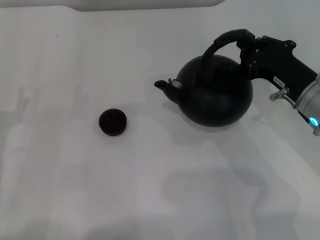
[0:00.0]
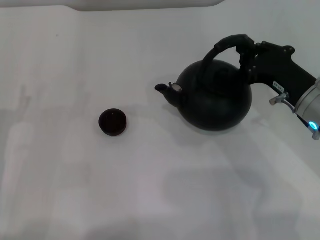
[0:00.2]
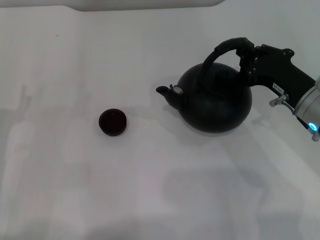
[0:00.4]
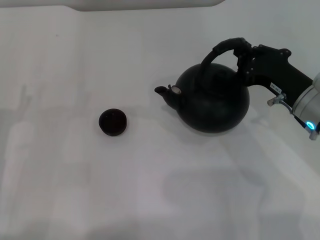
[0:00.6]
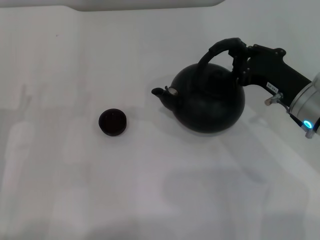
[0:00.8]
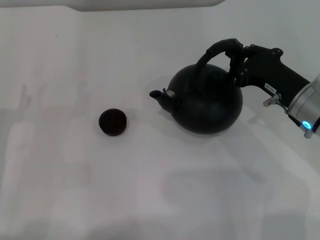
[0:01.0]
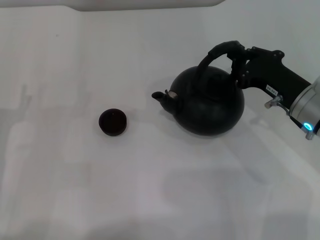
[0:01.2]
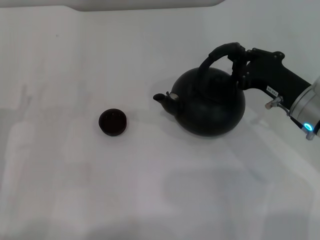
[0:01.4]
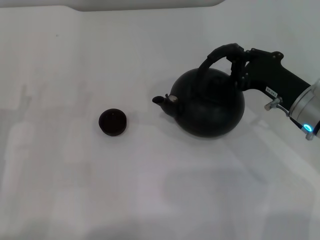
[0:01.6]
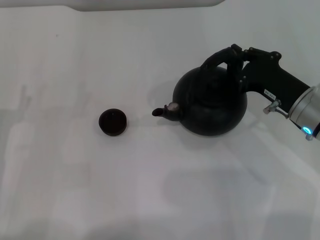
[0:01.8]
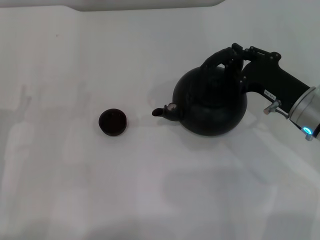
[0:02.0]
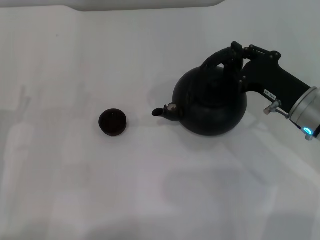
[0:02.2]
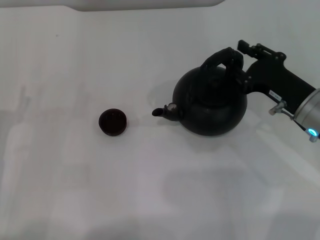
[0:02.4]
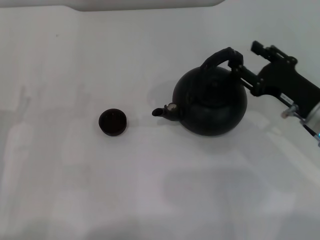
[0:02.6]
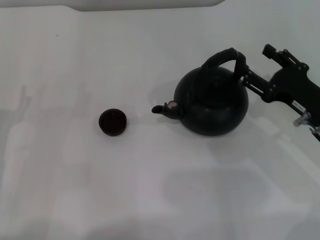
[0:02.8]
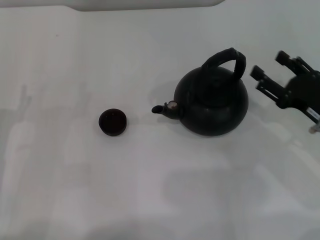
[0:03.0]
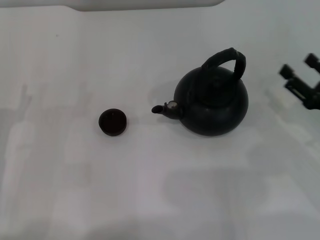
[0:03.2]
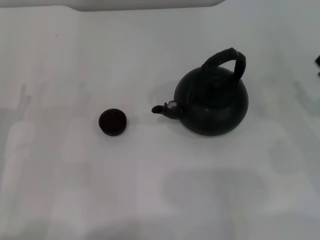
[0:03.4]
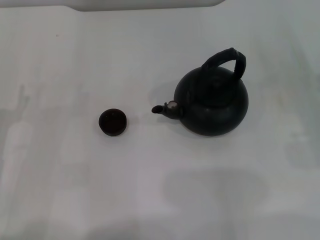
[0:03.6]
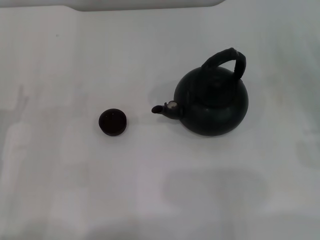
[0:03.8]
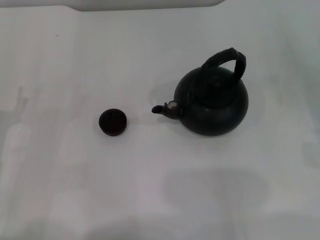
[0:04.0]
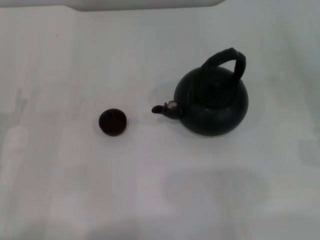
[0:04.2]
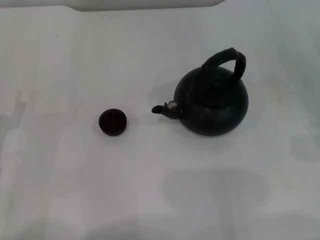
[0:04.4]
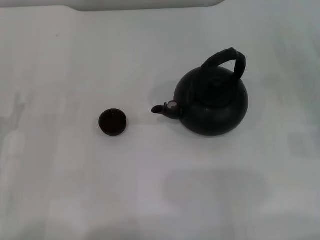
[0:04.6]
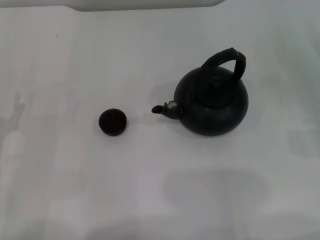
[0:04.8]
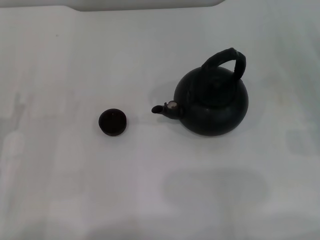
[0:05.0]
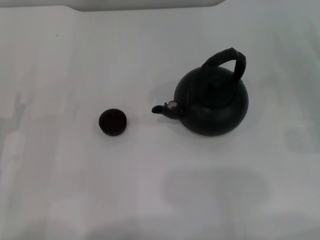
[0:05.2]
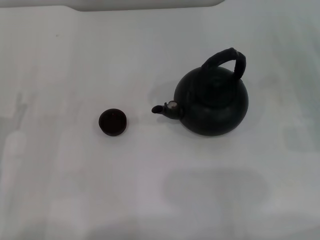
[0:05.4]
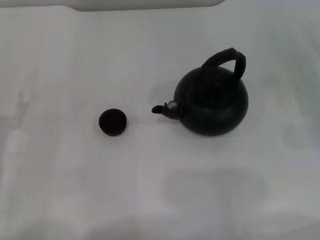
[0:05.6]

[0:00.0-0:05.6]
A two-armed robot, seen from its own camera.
Task of the whole recording: Grasp the handle of the teapot with one hand and pour tea into the teacup.
Step, 0:00.0 to 0:02.8: Put down the teapot with the right gripper.
0:00.0 to 0:01.4: The grippers stay close to where they were, moving slightly.
0:01.4 to 0:02.8: The right gripper opens.
0:02.8 to 0:04.2: The right gripper moves to the right, about 10 cm.

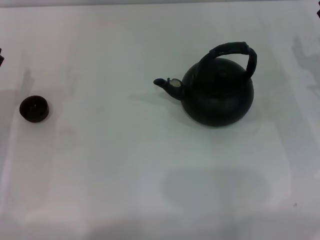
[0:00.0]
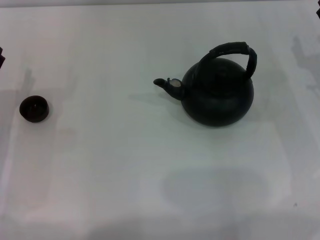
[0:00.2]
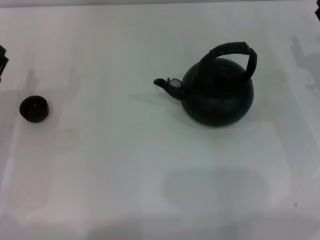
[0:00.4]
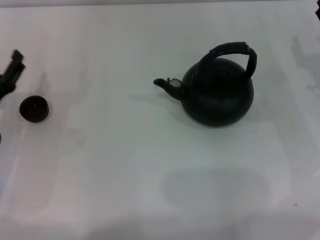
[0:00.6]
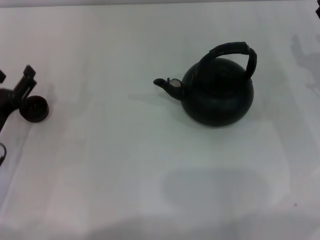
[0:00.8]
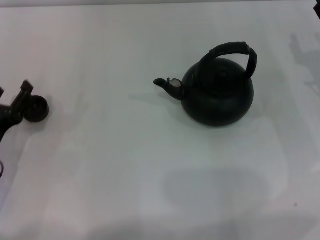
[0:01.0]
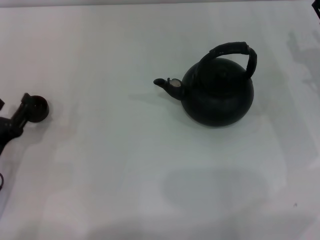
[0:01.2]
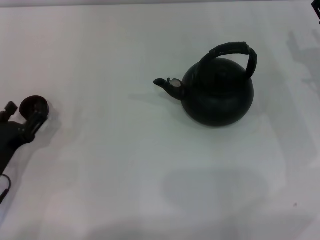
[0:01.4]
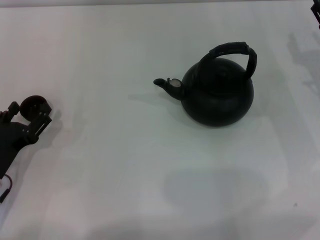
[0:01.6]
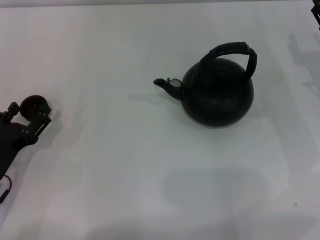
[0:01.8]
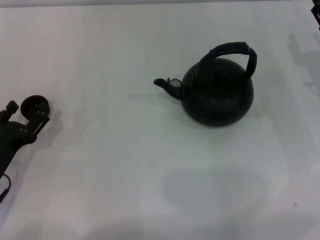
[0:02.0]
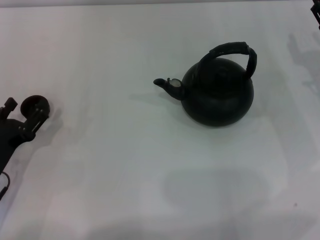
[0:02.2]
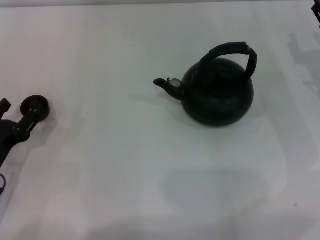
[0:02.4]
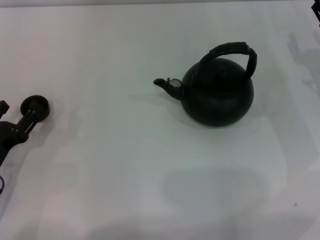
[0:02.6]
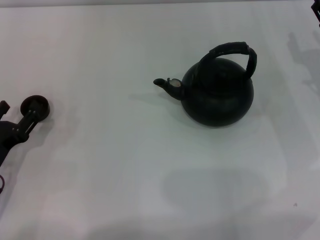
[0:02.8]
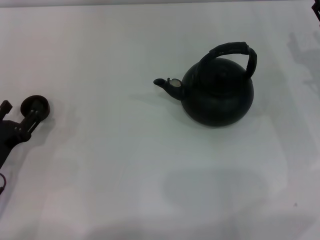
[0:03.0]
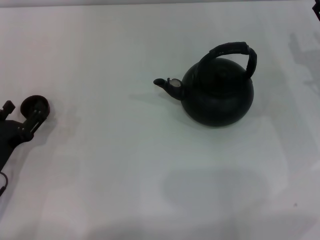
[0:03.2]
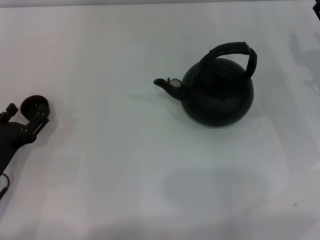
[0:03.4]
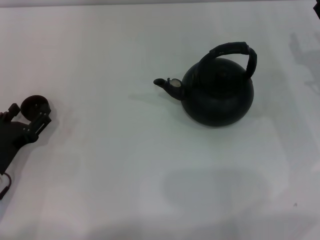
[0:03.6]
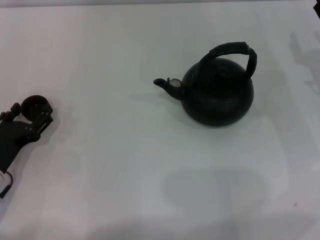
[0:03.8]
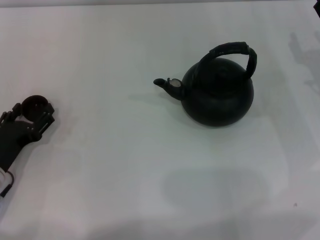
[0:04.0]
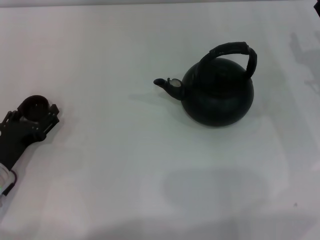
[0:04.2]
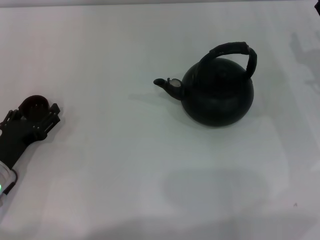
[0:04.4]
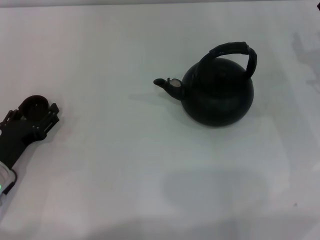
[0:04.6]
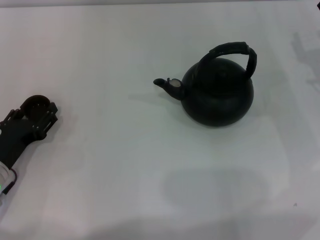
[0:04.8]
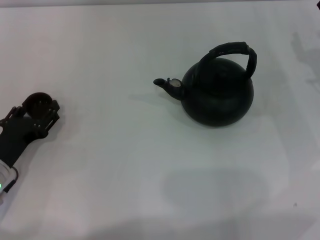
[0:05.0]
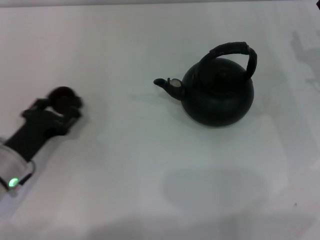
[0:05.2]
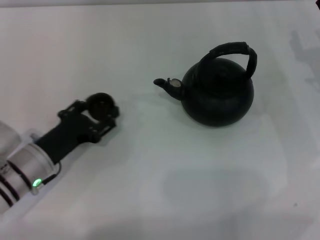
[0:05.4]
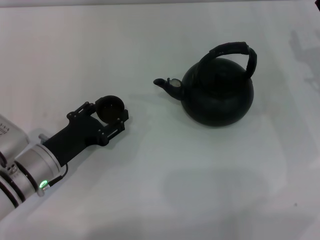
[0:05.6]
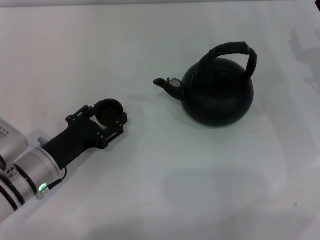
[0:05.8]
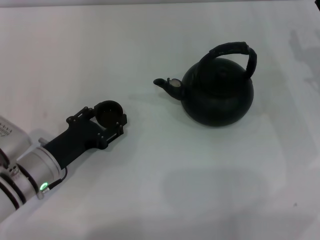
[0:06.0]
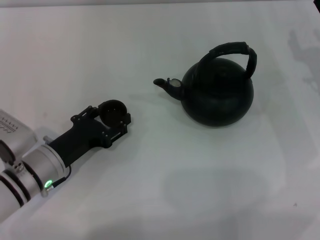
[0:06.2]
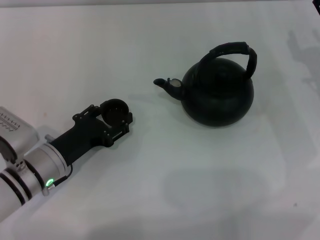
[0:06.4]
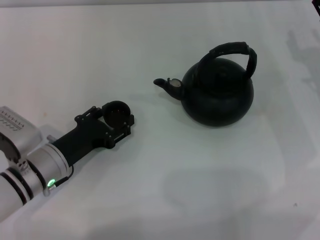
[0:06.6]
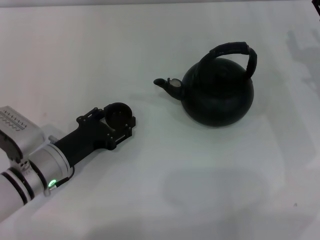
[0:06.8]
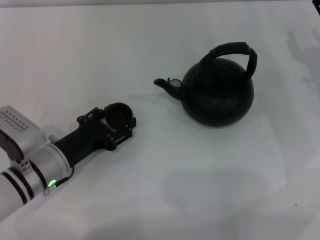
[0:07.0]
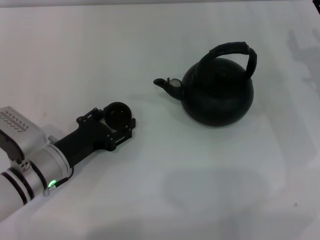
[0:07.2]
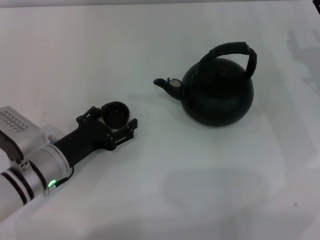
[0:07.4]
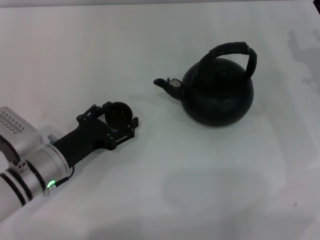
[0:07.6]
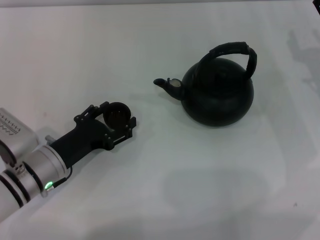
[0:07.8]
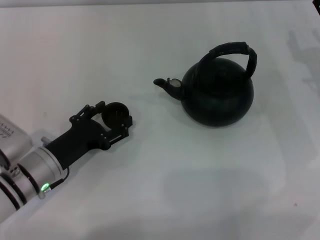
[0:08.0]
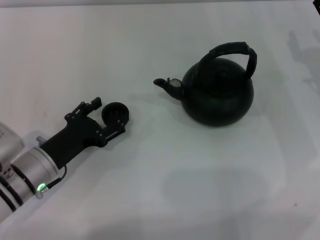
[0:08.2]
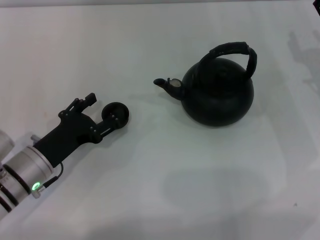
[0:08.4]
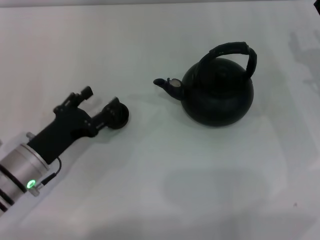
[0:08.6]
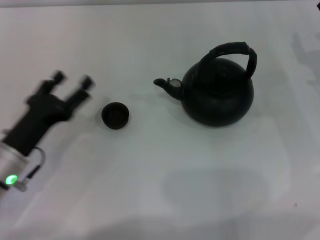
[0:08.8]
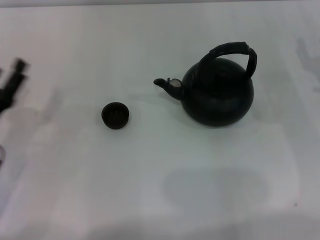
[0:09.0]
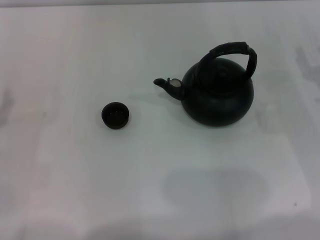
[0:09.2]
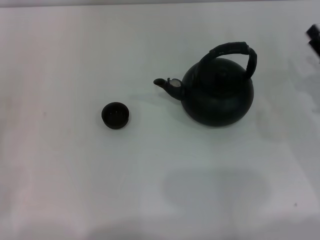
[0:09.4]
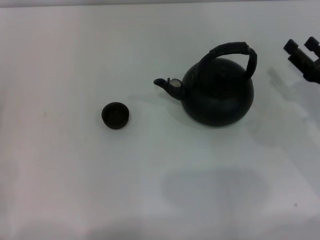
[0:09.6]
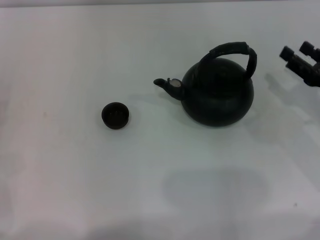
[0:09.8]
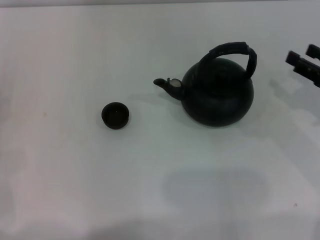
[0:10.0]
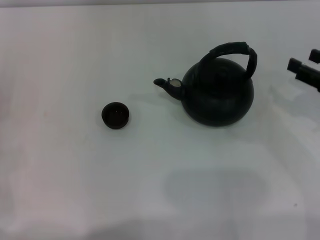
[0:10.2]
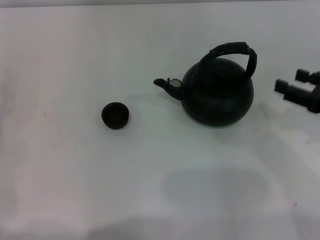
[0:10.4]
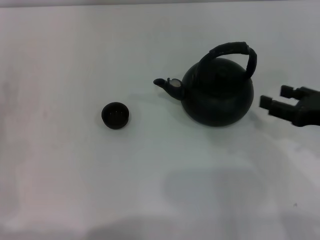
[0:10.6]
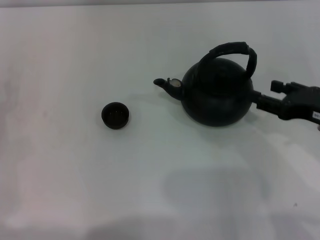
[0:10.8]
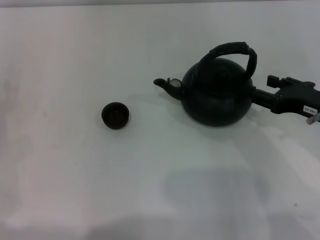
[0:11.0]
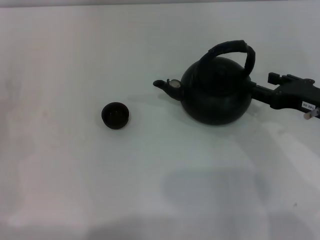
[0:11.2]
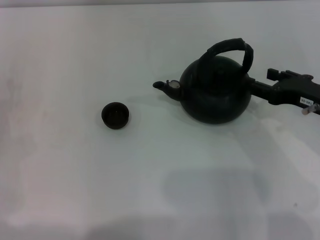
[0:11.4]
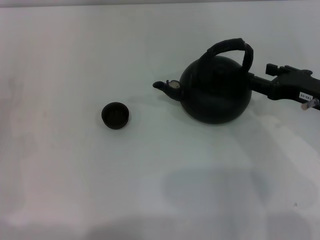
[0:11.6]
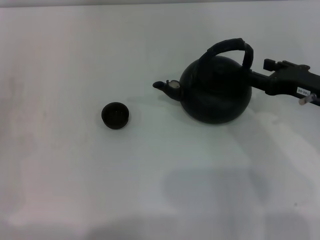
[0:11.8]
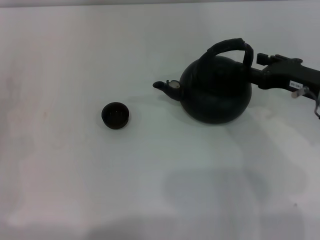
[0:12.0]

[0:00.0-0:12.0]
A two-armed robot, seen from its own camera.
Task of the whole recording: Grasp the handle of the teapot with one hand and pour tea into the teacup.
Step, 0:00.0 to 0:05.0: Pick up the teacup with the left gripper.
Step, 0:05.2 to 0:08.6: Place the teacup in the center of view with the left gripper.
0:00.0 to 0:01.6: The left gripper heads backward, covering about 5 cm.
0:01.6 to 0:03.0: The two grippers keep their place.
0:03.0 to 0:04.4: There are only small adjustments of the grippers.
0:04.4 to 0:06.0: The left gripper is displaced to the right by approximately 5 cm, and closes its fingers.
0:06.0 to 0:07.6: The left gripper opens its fingers.
0:07.6 to 0:09.0: The left gripper goes some 10 cm to the left.
0:09.0 to 0:10.4: The left gripper goes some 5 cm to the left. Meanwhile the right gripper heads upward and backward, covering roughly 10 cm.
0:10.4 to 0:12.0: The right gripper moves to the left and forward, roughly 10 cm.

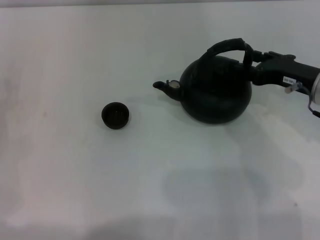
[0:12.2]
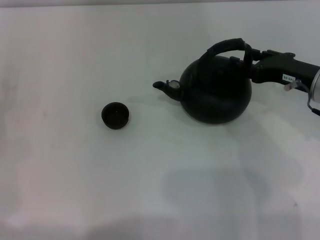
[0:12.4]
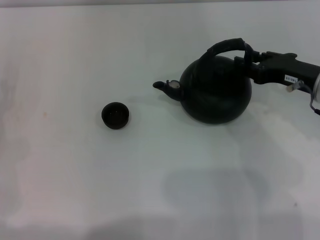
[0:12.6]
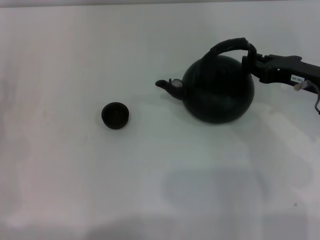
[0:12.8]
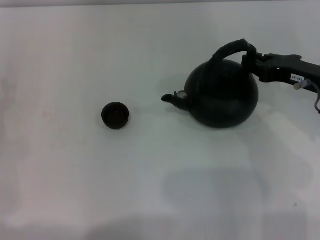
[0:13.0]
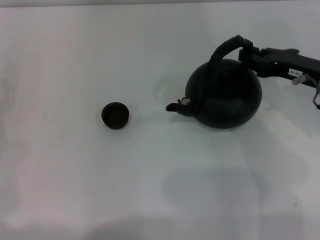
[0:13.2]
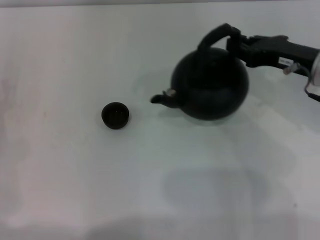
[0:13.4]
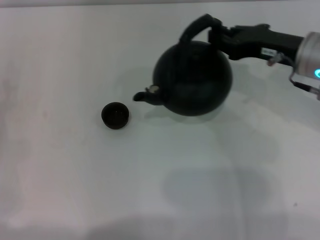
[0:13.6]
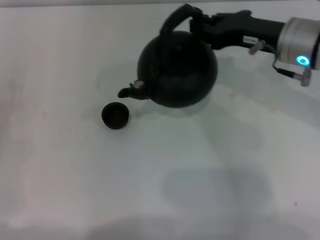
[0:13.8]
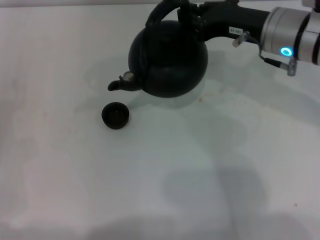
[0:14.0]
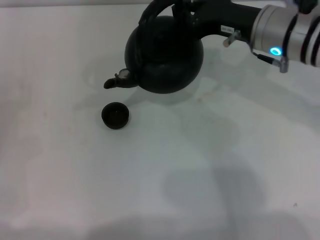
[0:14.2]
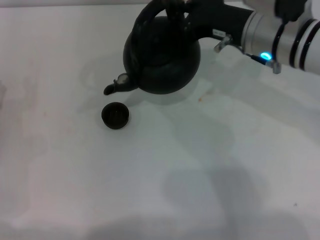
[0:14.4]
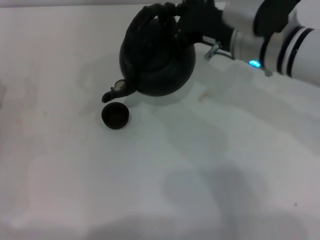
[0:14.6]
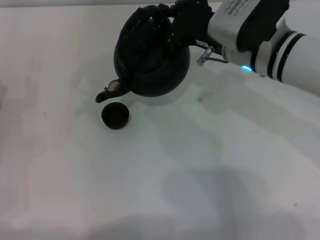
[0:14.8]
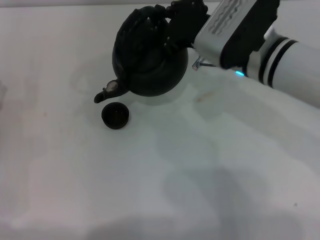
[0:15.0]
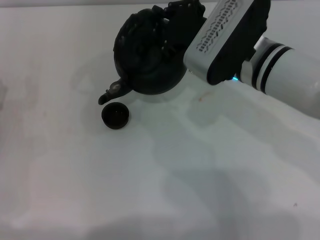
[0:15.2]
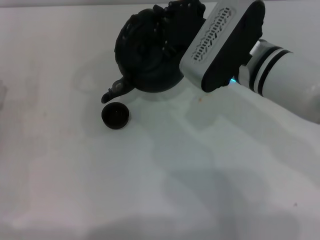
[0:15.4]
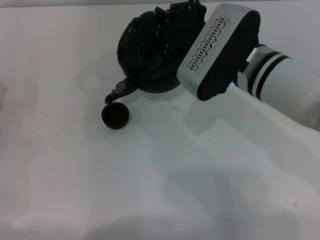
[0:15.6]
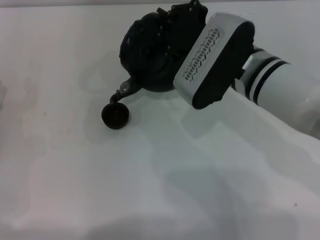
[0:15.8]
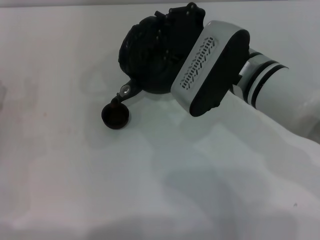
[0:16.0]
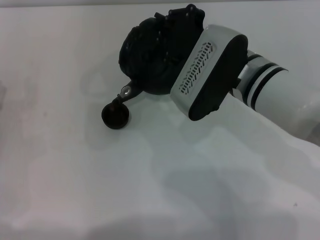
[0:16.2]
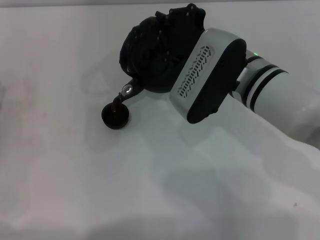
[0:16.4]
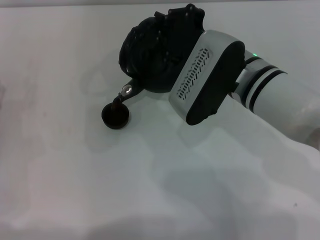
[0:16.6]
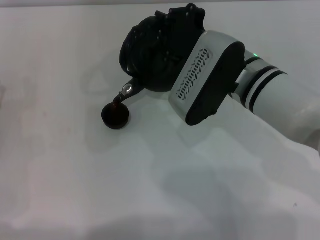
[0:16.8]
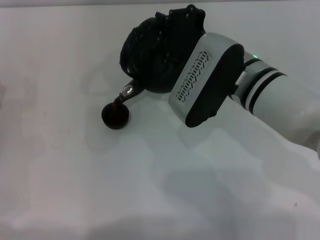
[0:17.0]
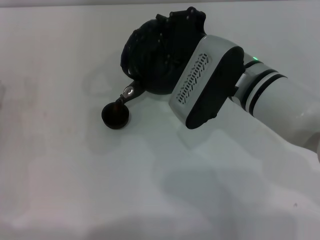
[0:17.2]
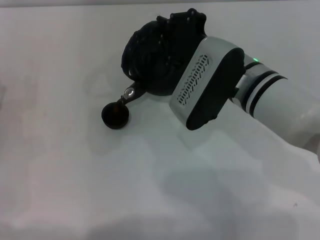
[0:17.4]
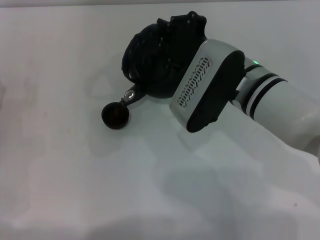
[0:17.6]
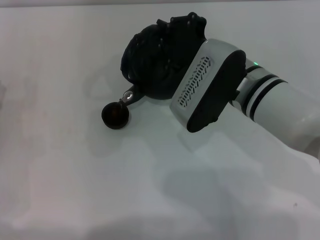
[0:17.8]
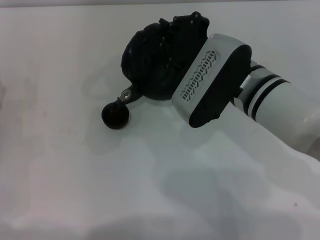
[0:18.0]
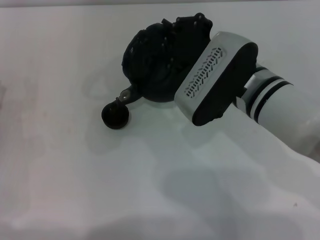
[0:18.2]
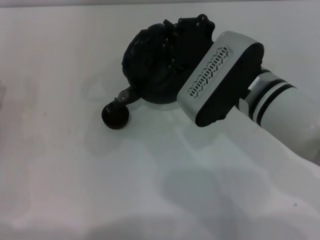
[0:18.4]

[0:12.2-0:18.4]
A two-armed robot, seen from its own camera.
Task of the whole recording: Grasp the handle of the teapot with one hand and pour tea into the teacup.
0:12.2 to 0:13.8: The right gripper heads to the left, covering some 5 cm, and closes up.
0:13.8 to 0:15.4: The right gripper shifts roughly 10 cm to the left.
0:15.4 to 0:18.4: The grippers move only a little.
